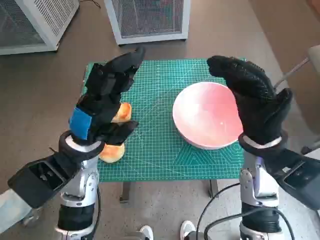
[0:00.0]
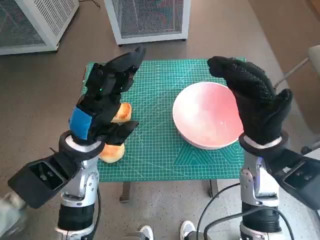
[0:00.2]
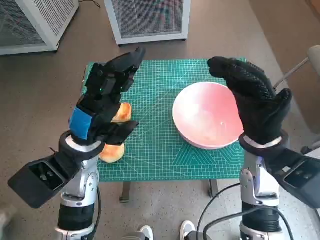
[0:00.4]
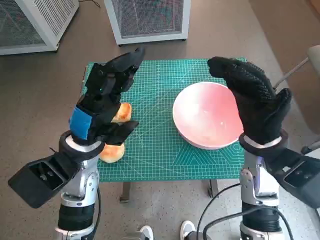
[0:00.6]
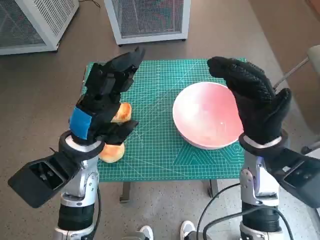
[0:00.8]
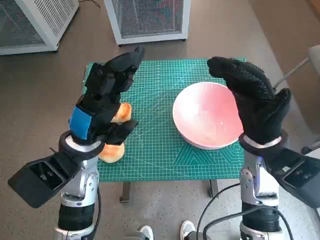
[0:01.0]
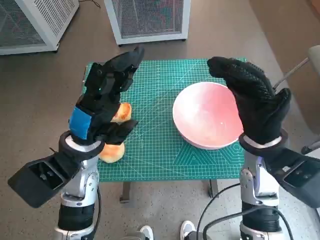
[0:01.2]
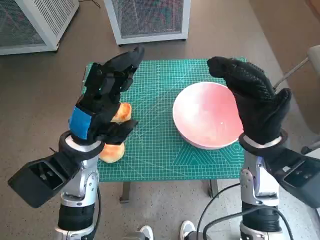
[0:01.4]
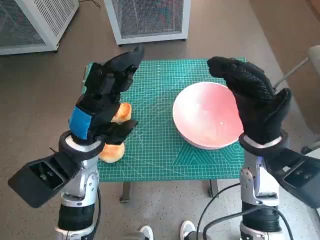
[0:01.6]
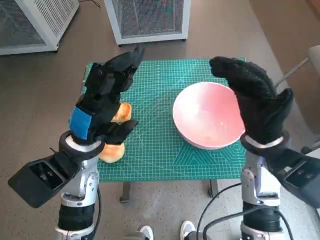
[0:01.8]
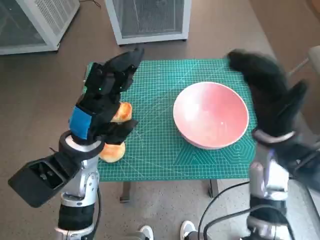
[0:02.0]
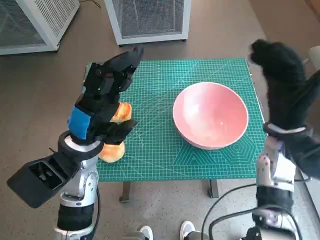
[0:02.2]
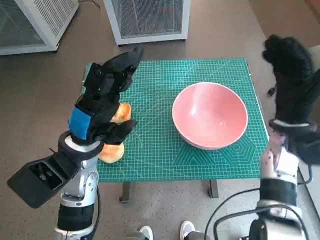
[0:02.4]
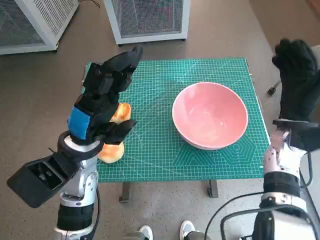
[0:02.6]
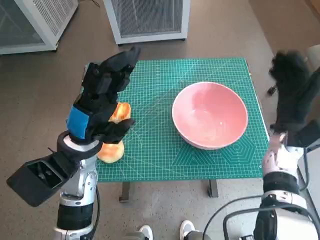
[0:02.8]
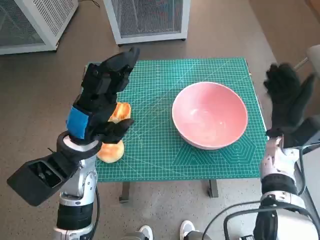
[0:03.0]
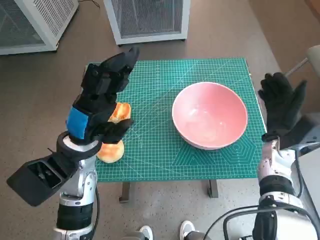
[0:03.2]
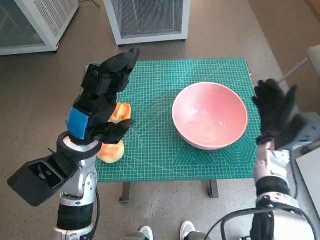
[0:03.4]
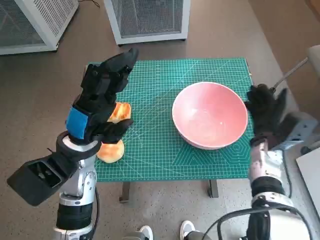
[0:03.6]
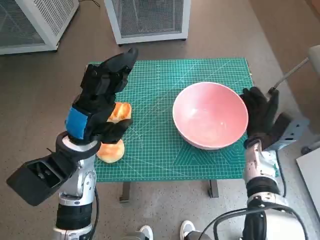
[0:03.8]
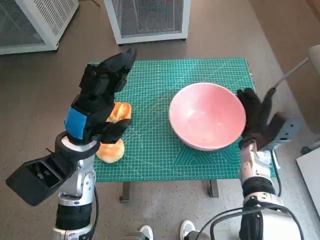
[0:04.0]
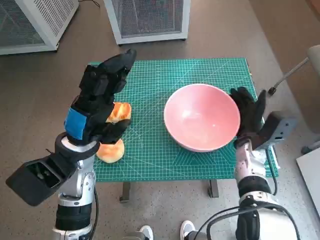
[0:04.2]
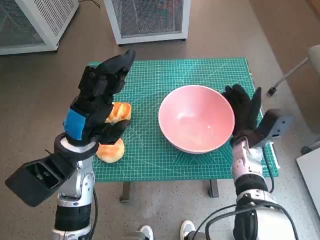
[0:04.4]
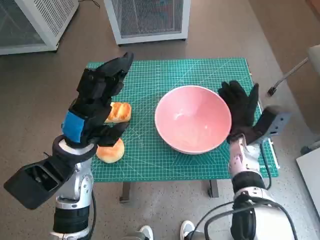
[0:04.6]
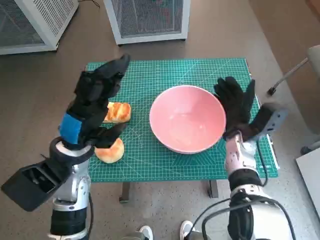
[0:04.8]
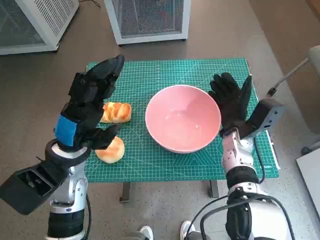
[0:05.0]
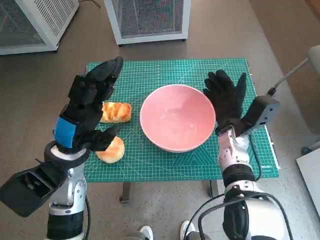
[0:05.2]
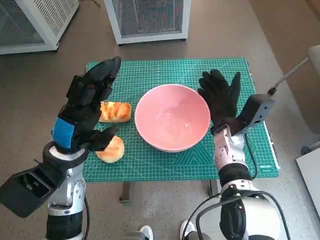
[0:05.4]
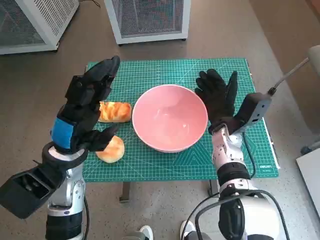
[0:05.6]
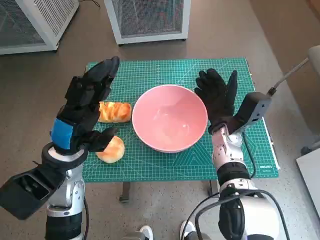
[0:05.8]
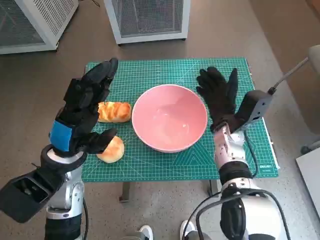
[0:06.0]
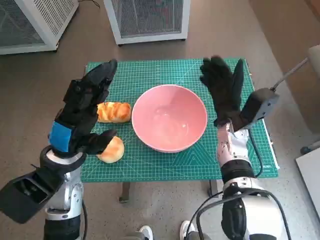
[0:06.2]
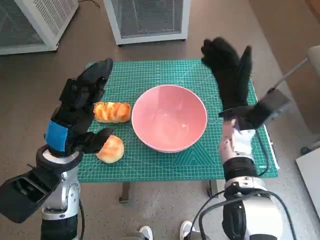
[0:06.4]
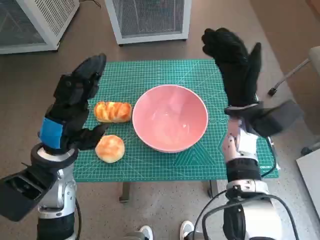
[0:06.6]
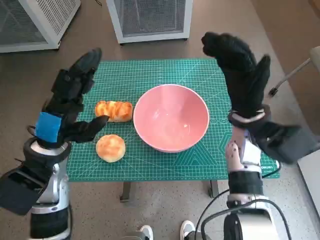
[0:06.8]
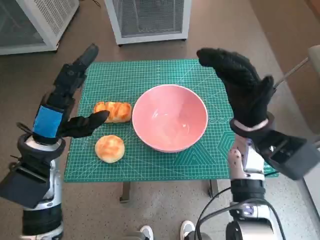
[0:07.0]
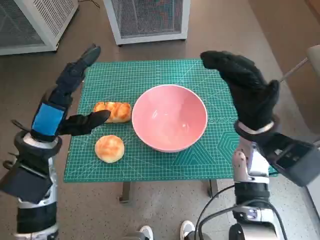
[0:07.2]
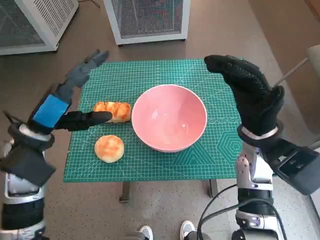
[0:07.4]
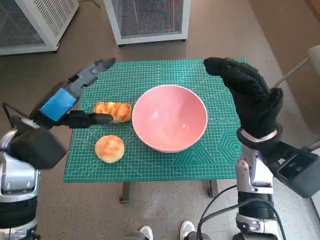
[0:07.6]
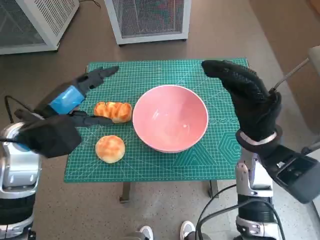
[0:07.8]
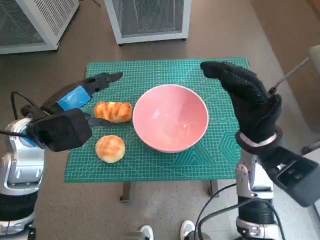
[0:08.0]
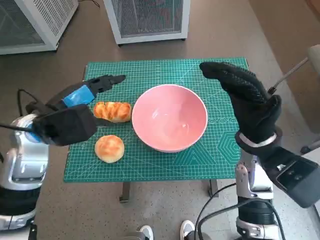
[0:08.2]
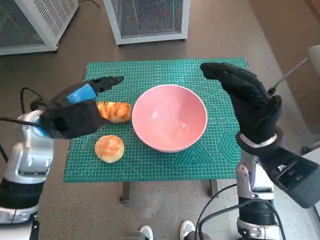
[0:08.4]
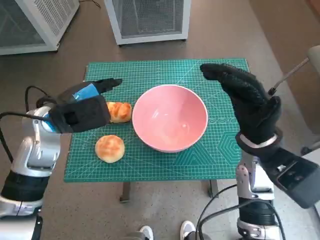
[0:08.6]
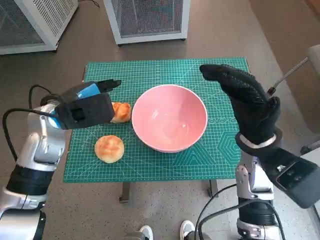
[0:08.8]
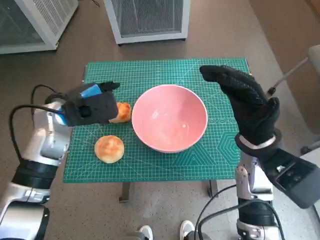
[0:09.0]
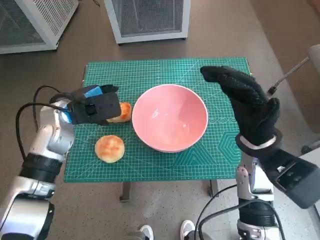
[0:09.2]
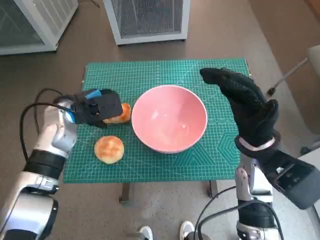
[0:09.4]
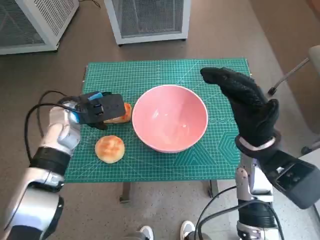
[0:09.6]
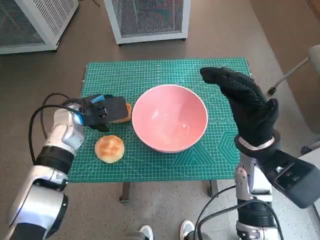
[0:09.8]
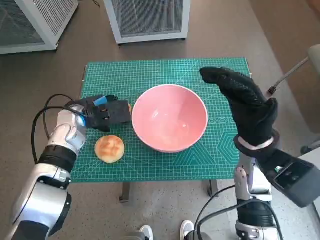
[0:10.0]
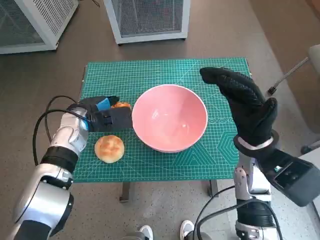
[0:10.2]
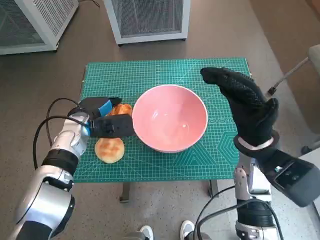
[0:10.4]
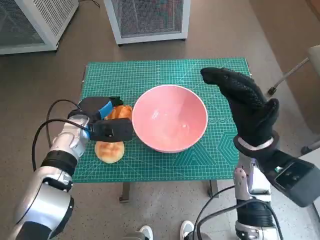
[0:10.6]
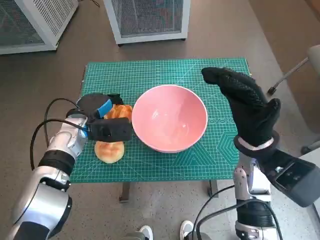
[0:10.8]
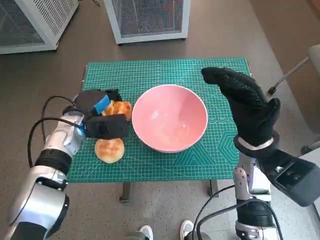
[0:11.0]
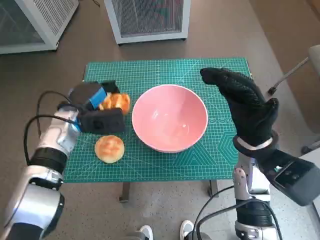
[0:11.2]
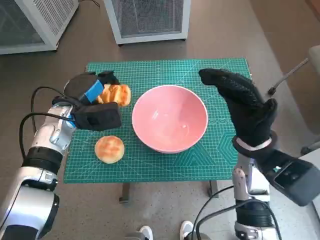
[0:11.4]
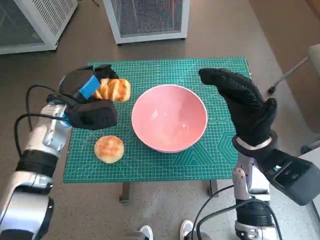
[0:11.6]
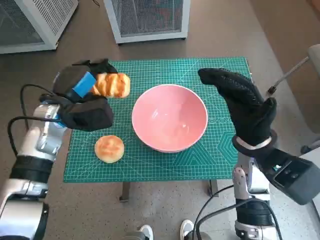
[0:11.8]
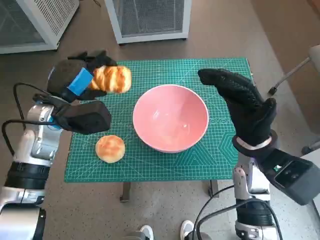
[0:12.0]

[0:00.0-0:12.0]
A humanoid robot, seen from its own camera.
Task of the whole recording: Push the bowl into the center of the table and put the bread into the bowl.
Step, 0:00.0 to 0:06.0: Move the pink bowl to the center of table with right hand.
Step, 0:06.2 to 0:10.4: Grasp the long bread with left hand.
0:01.6 to 0:03.0: The right hand is displaced to the right, downward and forward by about 10 cm.
0:03.0 to 0:04.4: The right hand heads to the left, covering approximately 5 cm.
0:04.4 to 0:06.0: The right hand heads to the left, covering approximately 5 cm.
0:06.0 to 0:07.6: The right hand goes approximately 10 cm upward and backward. The left hand ends up approximately 5 cm from where it was.
0:07.6 to 0:09.0: The left hand moves forward, roughly 5 cm.
0:09.0 to 0:10.4: The left hand moves downward, about 10 cm.
0:10.4 to 0:12.0: The left hand moves upward, approximately 10 cm.

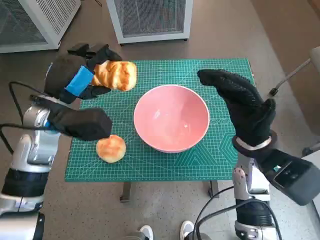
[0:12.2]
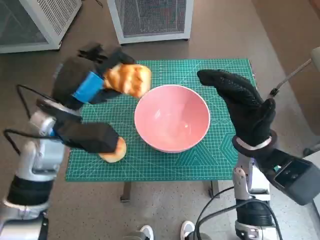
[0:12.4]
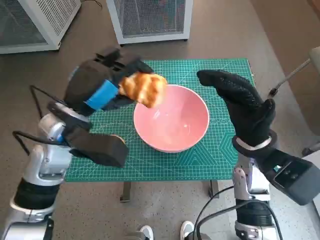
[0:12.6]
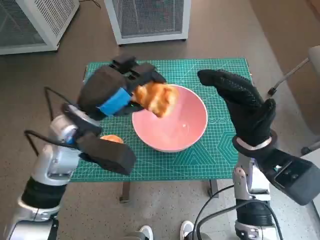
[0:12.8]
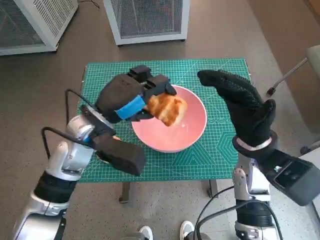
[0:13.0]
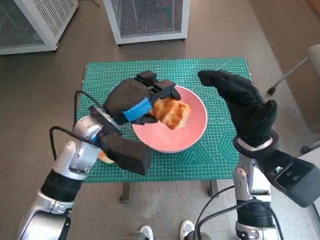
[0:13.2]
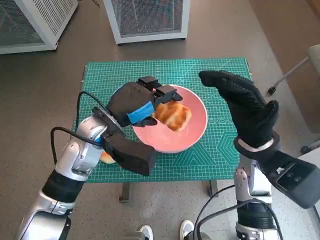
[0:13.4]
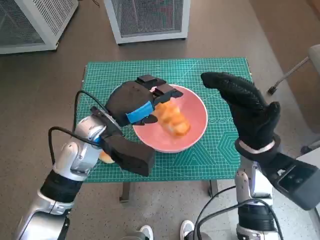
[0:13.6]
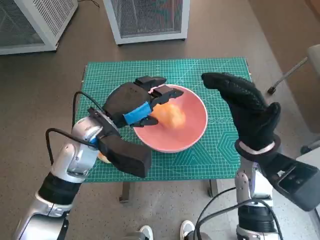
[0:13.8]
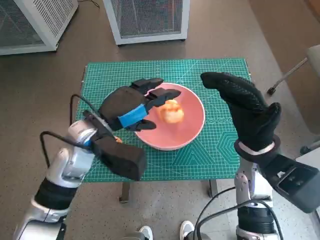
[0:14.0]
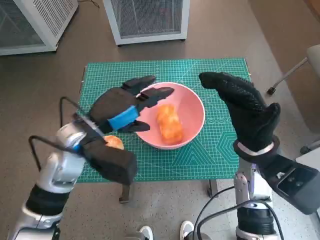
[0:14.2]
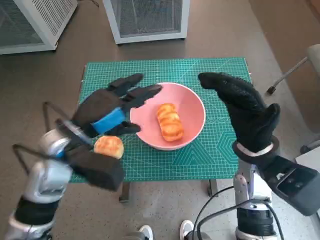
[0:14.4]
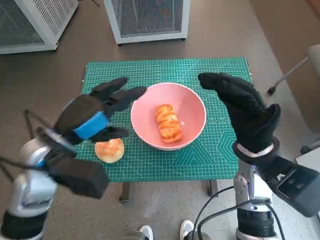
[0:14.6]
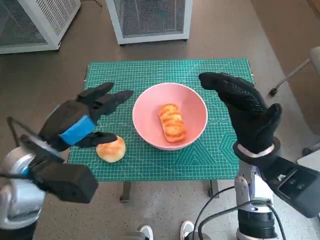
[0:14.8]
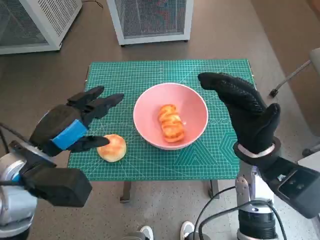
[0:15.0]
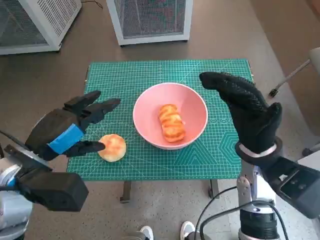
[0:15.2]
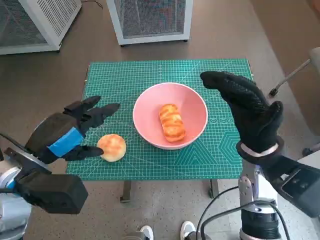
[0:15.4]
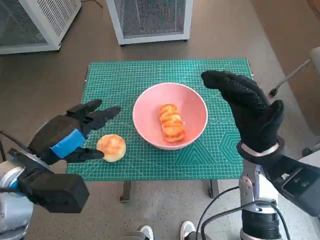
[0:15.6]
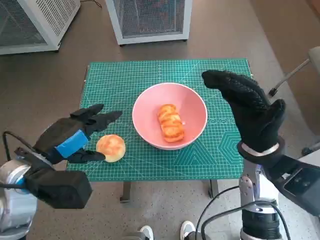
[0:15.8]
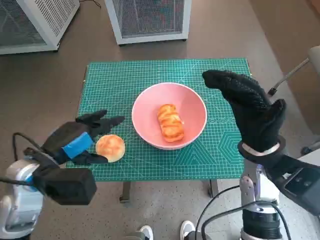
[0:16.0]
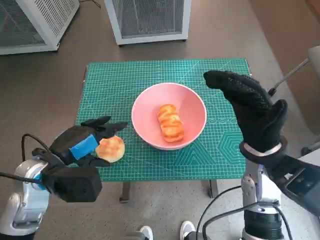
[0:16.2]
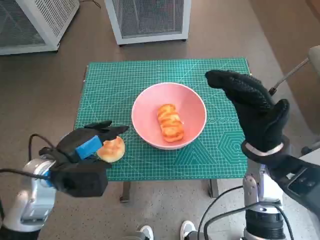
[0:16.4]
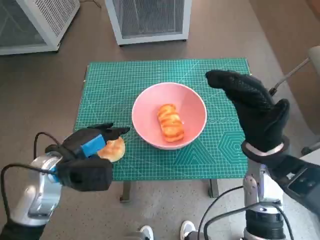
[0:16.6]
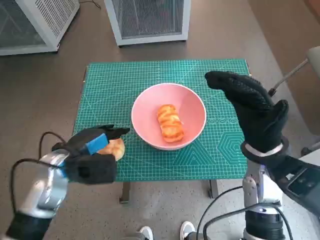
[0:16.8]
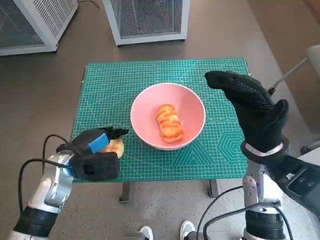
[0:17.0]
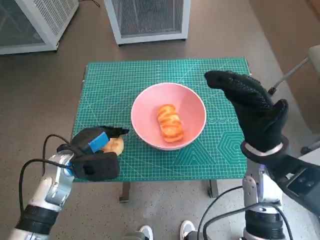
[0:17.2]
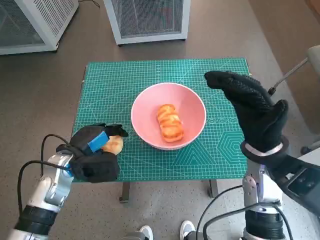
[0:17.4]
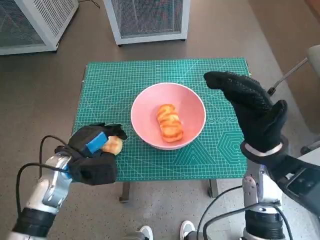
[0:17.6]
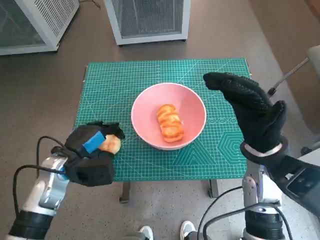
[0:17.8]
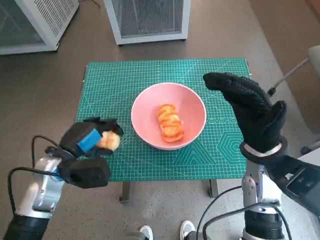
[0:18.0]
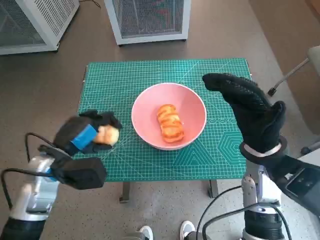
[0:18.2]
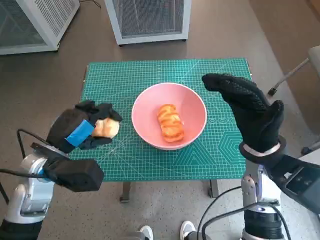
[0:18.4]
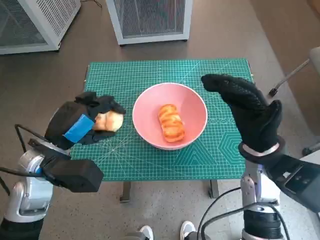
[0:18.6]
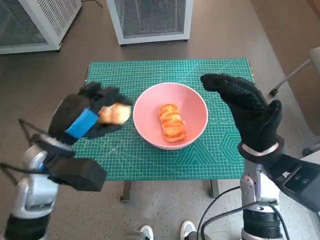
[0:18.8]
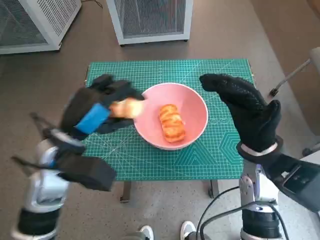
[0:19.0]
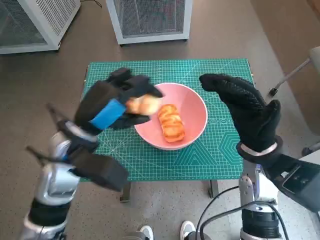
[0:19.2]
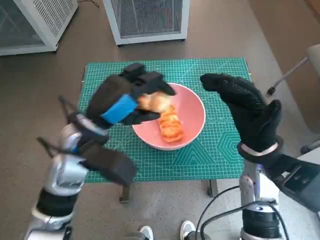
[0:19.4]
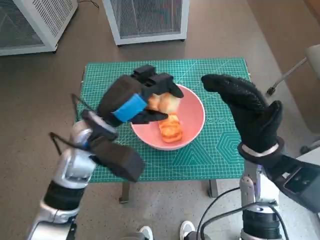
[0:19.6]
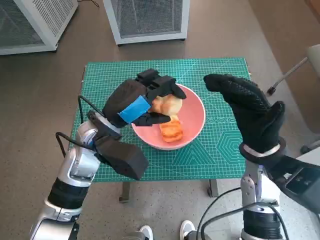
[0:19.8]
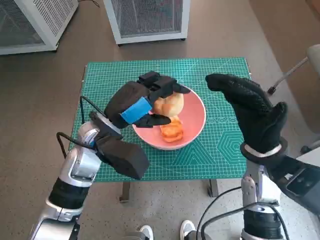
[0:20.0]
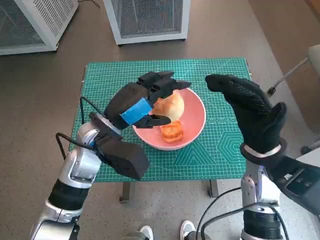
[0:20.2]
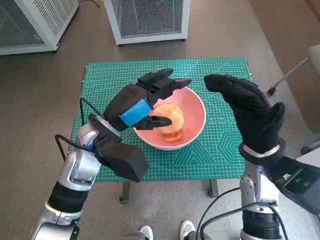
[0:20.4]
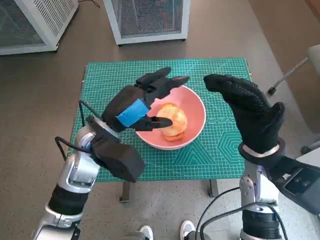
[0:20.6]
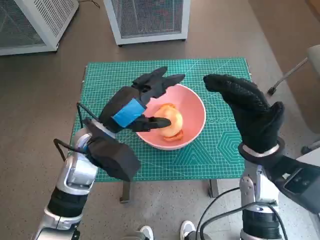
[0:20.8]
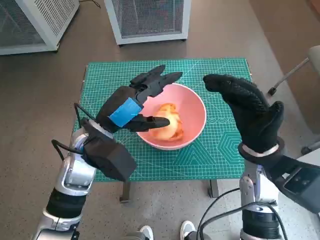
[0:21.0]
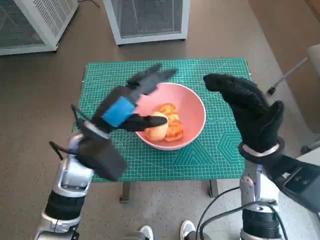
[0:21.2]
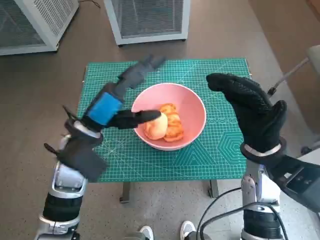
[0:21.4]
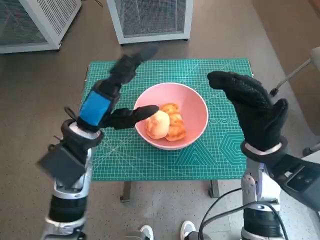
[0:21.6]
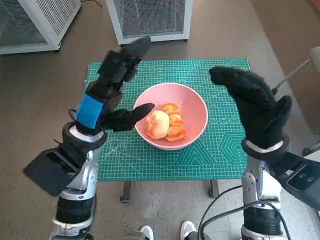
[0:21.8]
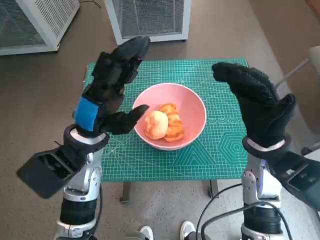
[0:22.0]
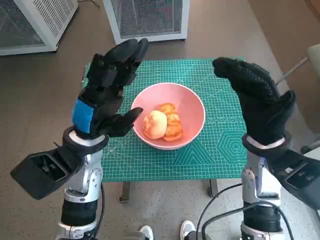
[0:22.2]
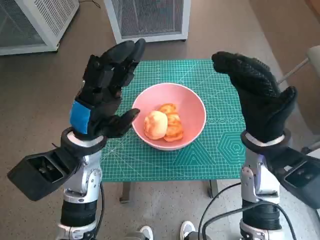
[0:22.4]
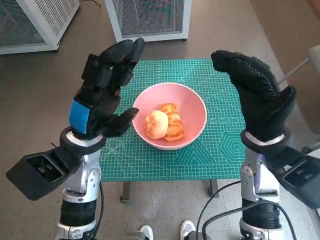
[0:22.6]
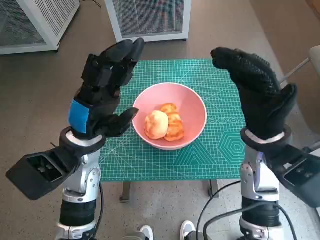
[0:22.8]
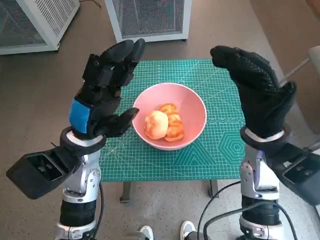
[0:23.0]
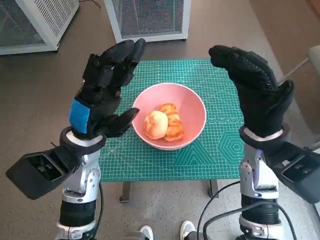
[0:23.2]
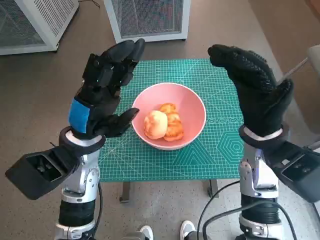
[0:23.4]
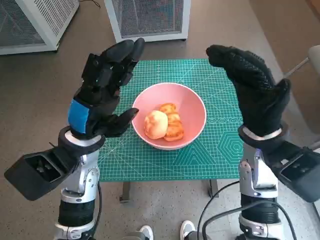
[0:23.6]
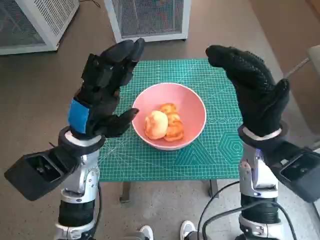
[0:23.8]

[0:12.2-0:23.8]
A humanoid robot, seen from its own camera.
Task of the whole recording: Push the bowl into the center of the table and put the bread into the bowl.
Step, 0:13.8 to 0:17.0: Grasp the round bread with left hand.
Step, 0:17.2 to 0:20.2: Place the round bread in pink bowl with left hand.
0:12.2 to 0:13.6: The left hand moves to the right, roughly 10 cm.
0:13.6 to 0:15.0: The left hand travels to the left and backward by some 10 cm.
0:15.0 to 0:16.6: The left hand goes some 5 cm downward.
0:16.6 to 0:18.0: There are only small adjustments of the hands.
0:18.0 to 0:19.4: The left hand shifts approximately 10 cm upward and to the right.
0:19.4 to 0:21.0: There are only small adjustments of the hands.
0:22.4 to 0:23.8: The two hands keep their place.
